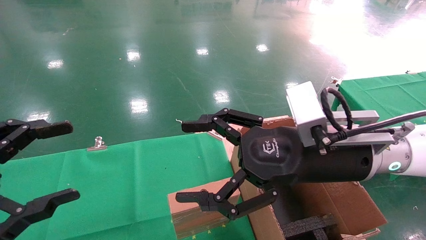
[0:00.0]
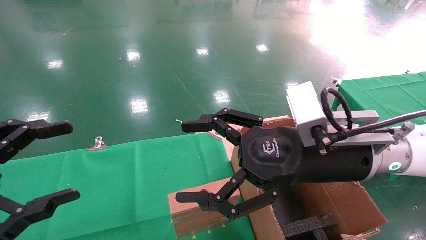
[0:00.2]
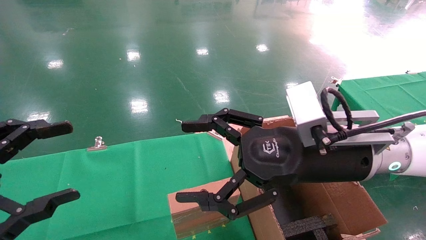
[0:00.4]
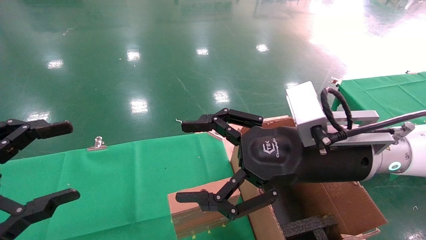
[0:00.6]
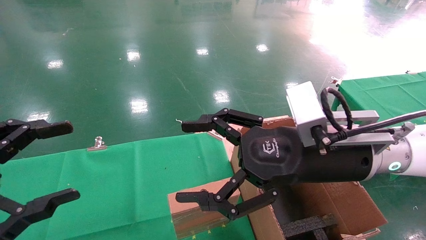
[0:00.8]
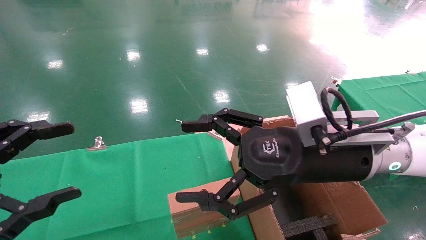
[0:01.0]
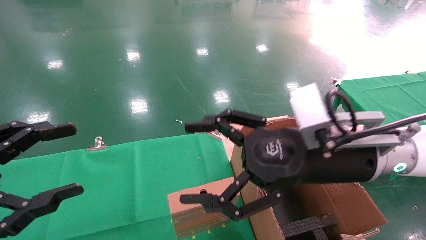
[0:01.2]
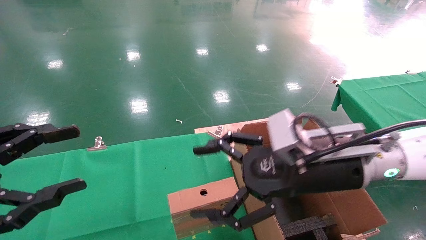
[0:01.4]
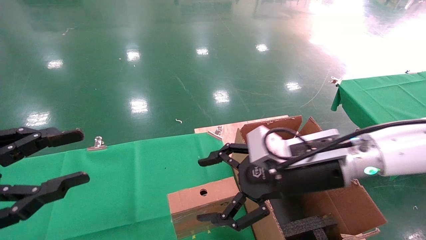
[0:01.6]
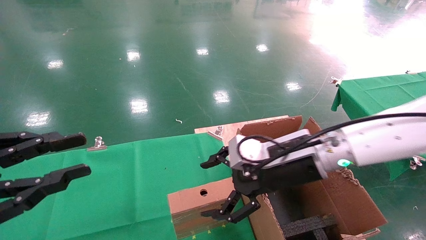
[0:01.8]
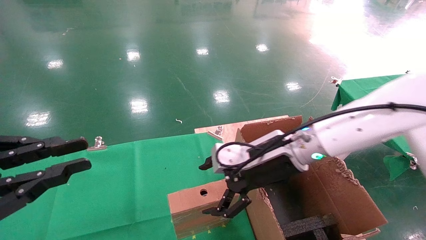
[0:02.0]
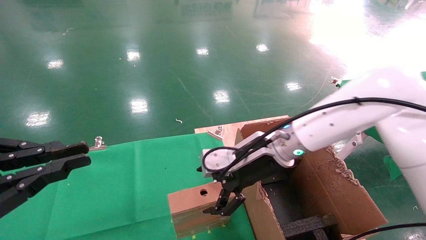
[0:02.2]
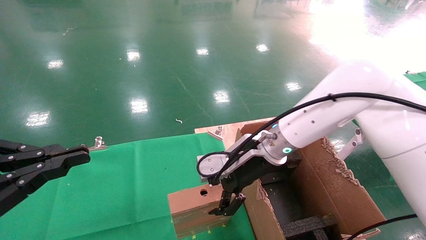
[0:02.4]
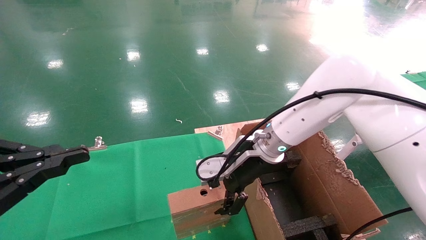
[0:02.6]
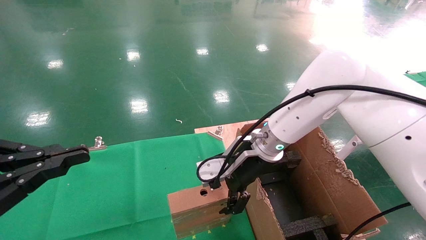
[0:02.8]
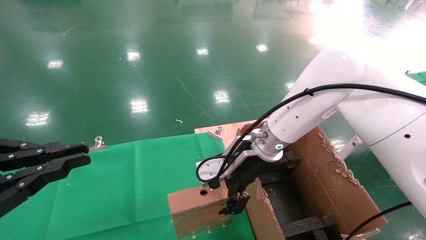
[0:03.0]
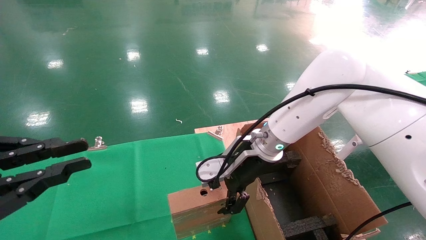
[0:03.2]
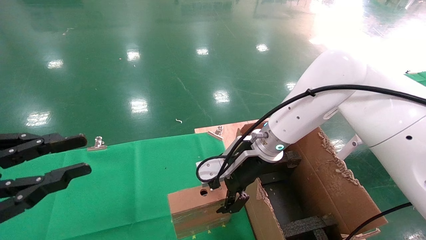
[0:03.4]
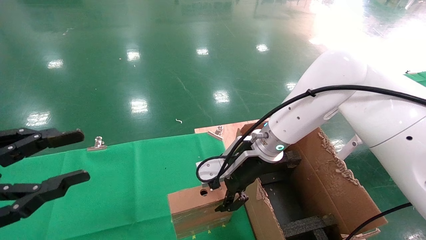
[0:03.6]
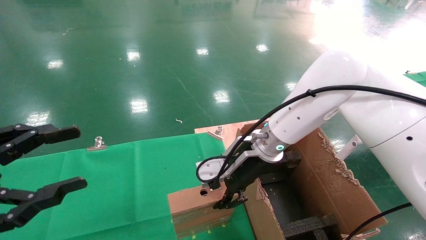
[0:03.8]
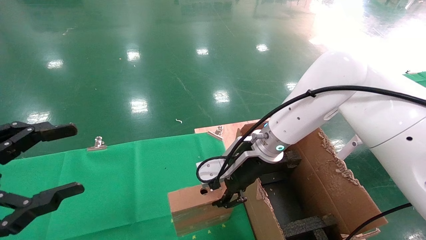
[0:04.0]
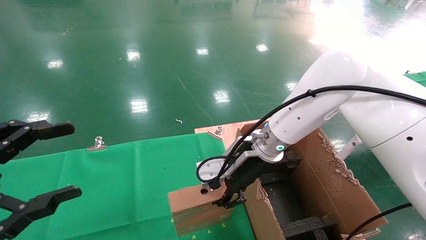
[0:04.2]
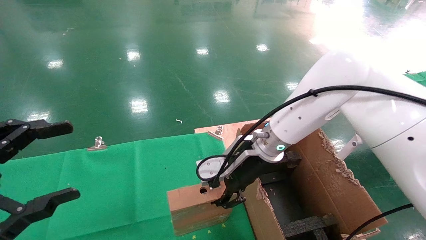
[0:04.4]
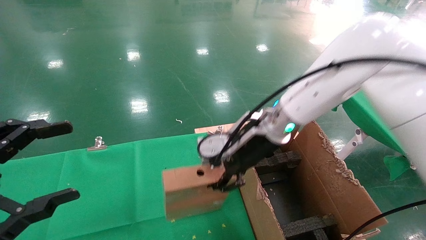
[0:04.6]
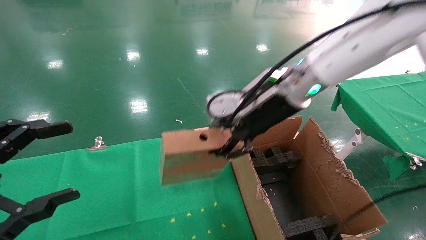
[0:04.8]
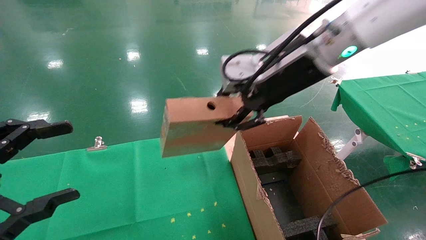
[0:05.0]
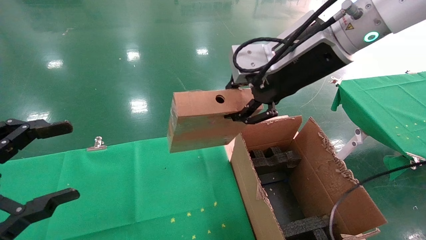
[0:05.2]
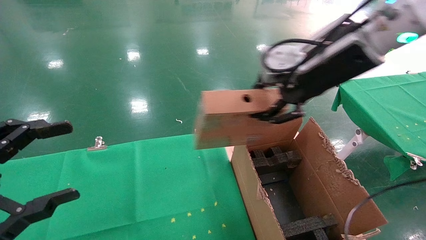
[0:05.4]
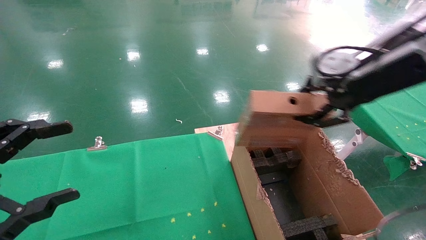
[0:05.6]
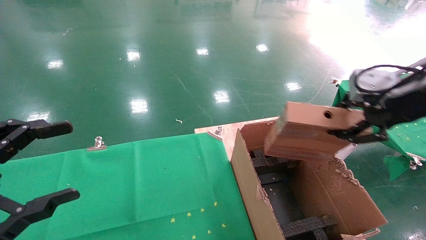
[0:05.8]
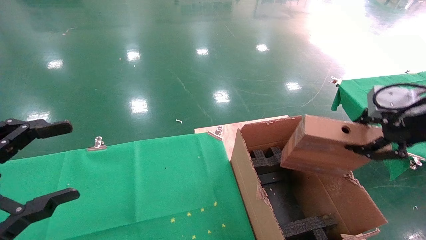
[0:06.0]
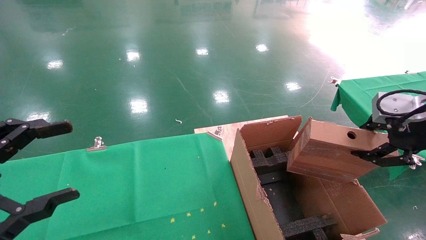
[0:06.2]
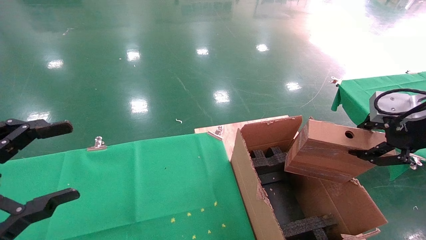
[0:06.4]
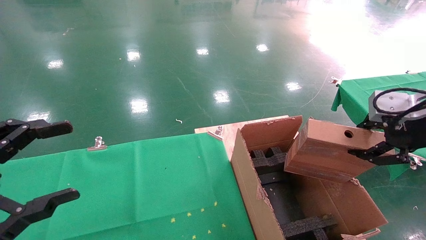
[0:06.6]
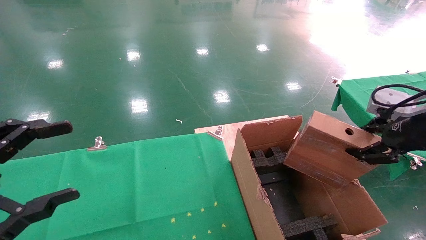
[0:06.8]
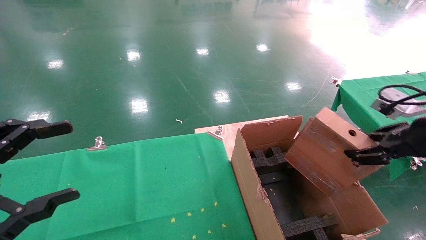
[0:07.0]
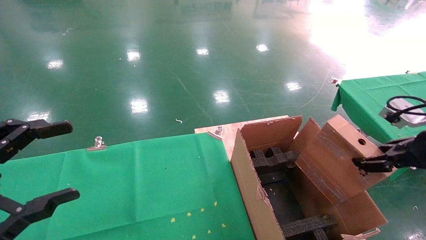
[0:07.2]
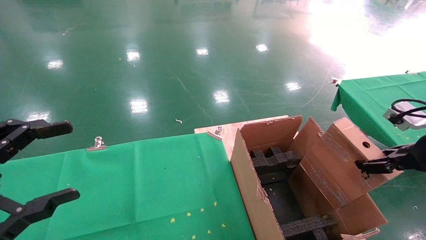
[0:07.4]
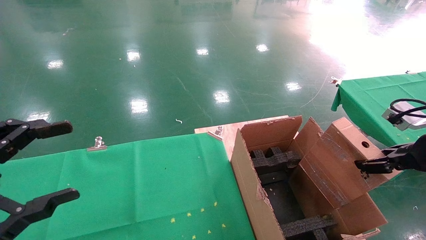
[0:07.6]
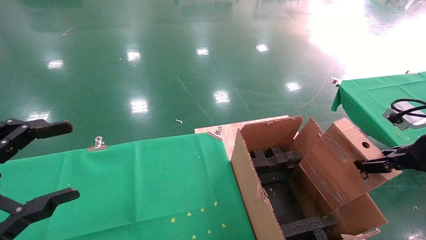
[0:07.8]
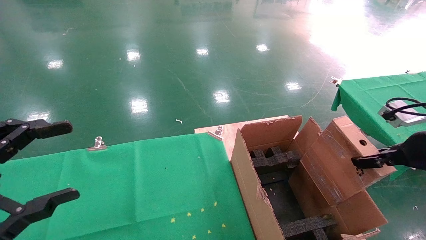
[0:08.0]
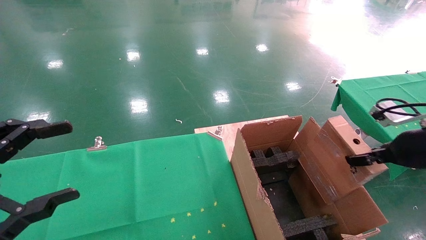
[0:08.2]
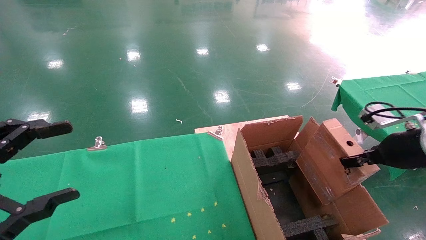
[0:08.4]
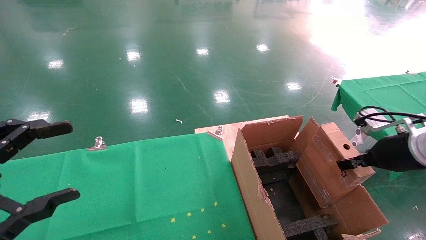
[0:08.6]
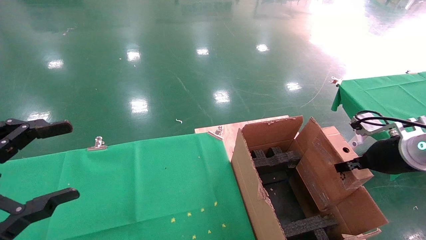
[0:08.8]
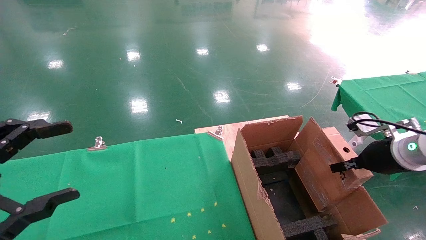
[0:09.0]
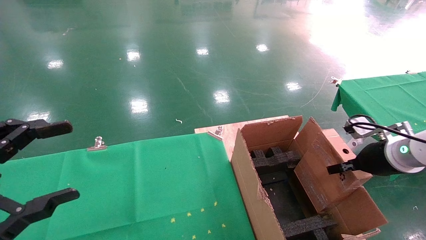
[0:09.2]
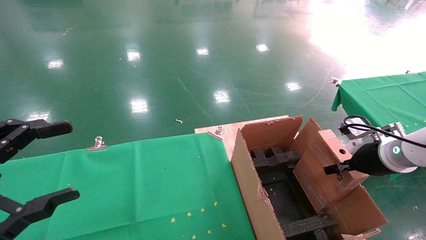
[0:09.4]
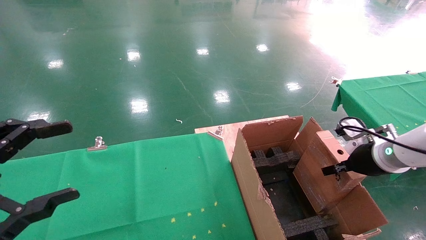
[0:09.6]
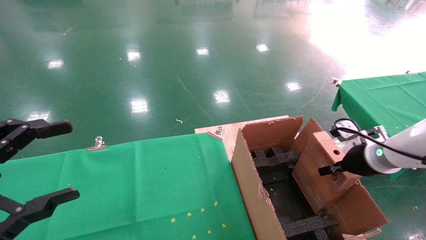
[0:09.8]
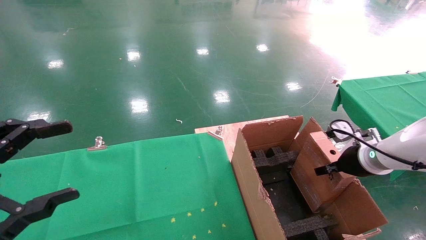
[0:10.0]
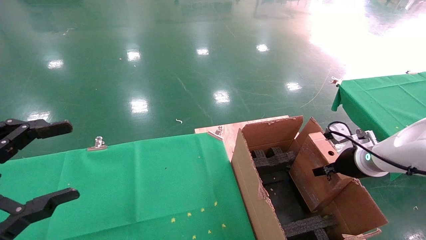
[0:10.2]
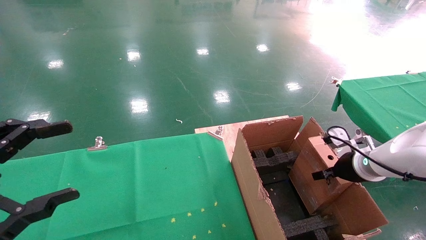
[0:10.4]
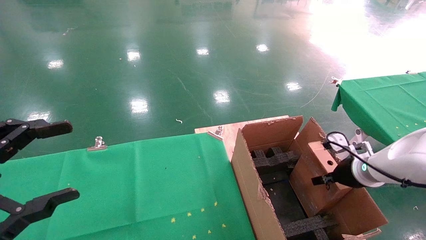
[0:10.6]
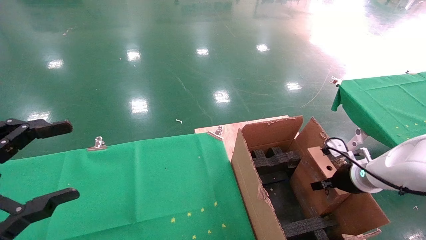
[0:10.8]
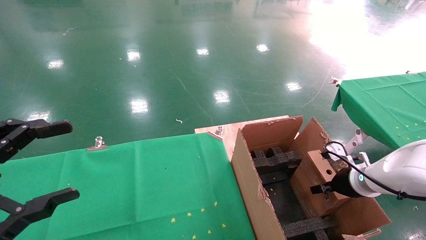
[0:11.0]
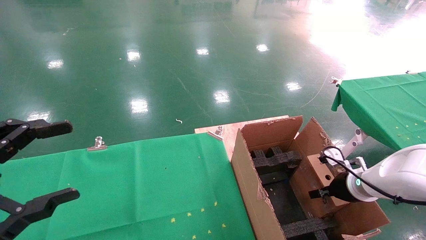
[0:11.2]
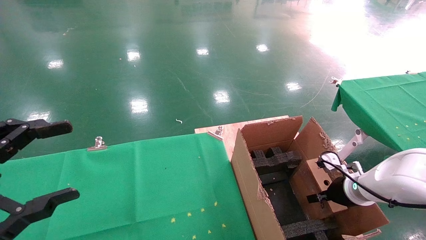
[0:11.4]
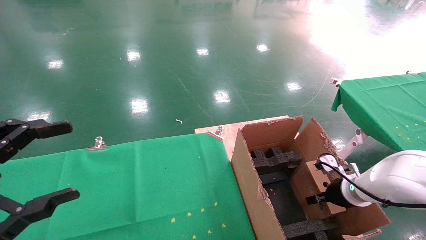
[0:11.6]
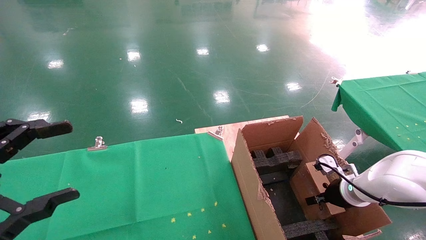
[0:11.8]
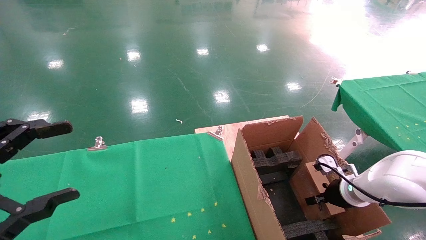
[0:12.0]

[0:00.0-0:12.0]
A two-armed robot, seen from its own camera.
Task of the whole recording: using a robotic arm to pick up a cardboard box and palace it the carton.
Step, 0:01.2 to 0:04.0: Pick up the mouse and the power cord paper box.
0:00.0 to 0:01.6: The right gripper moves some 5 cm. The left gripper closes its fingers.
0:01.6 to 0:03.0: The right gripper is displaced forward and to the left by approximately 10 cm. Meanwhile the left gripper closes its fingers.
0:03.0 to 0:04.4: The left gripper opens up. The right gripper closes its fingers.
0:04.4 to 0:06.0: The right gripper moves to the right, backward and upward, roughly 30 cm.
0:06.0 to 0:07.6: The right gripper is displaced downward by roughly 10 cm.
0:07.6 to 0:09.0: The right gripper is displaced forward and downward by about 10 cm.
0:09.0 to 0:10.4: The right gripper goes approximately 5 cm downward.
0:10.4 to 0:12.0: The right gripper travels downward by approximately 10 cm.

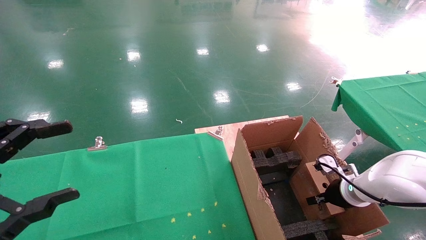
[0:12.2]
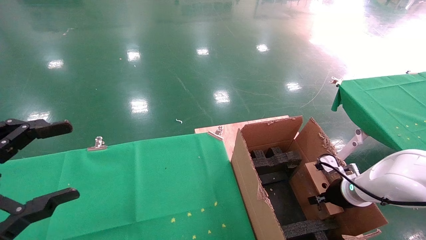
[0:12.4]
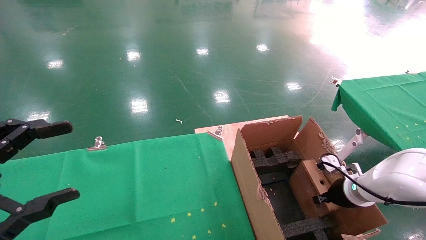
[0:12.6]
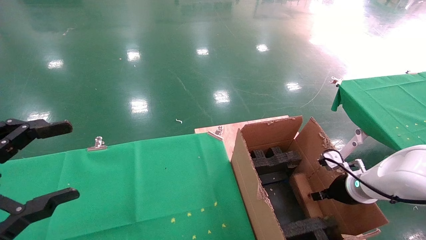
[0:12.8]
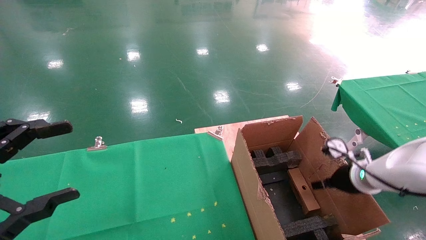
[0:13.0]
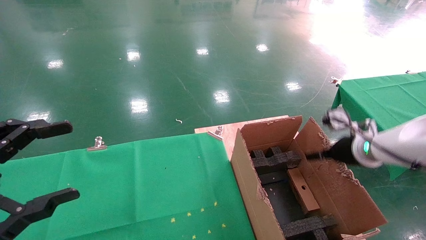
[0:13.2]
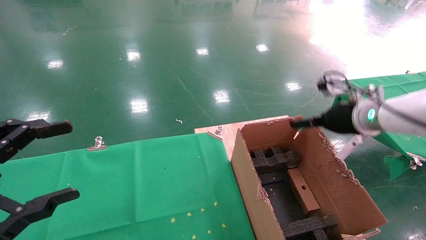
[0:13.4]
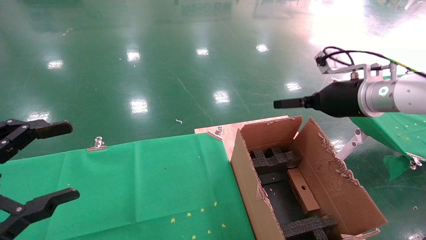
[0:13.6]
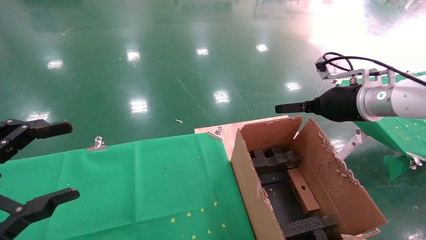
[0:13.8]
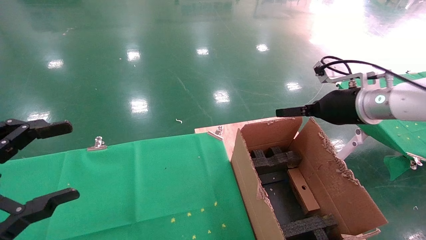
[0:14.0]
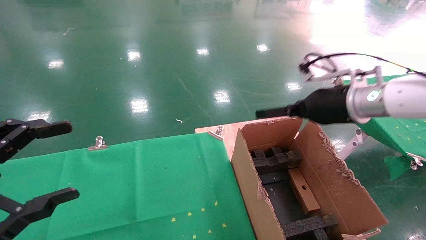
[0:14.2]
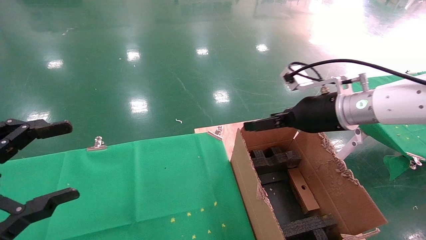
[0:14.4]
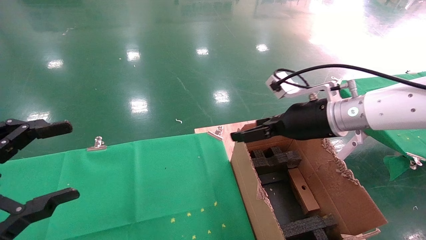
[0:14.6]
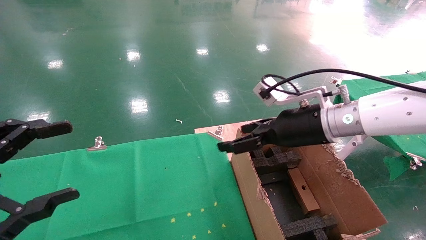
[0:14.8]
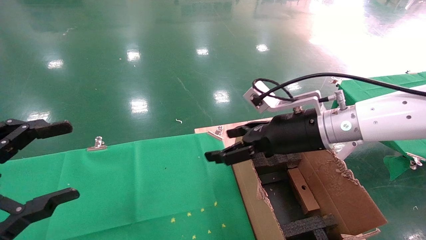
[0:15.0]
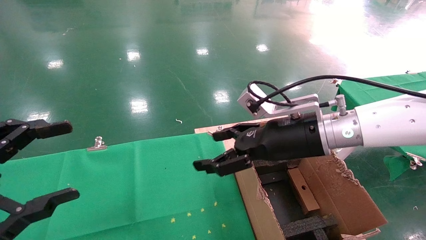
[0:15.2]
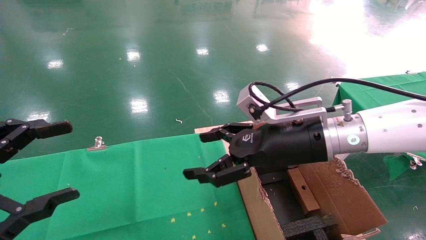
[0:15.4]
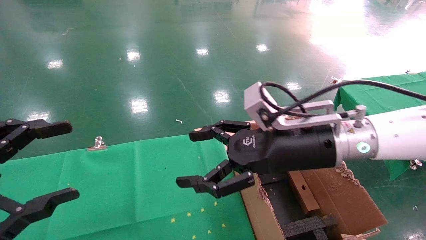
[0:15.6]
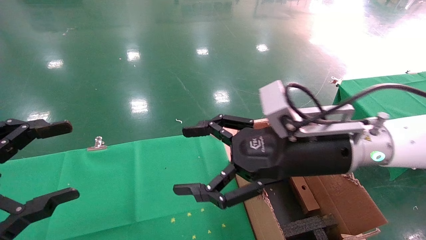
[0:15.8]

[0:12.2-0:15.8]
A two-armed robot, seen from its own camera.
Task of the whole recording: using a robotic arm to pick up a cardboard box and palace it the carton.
0:12.2 to 0:14.0: The right gripper moves upward, about 25 cm, and opens.
0:14.0 to 0:15.8: The right gripper goes some 15 cm to the left and backward.
